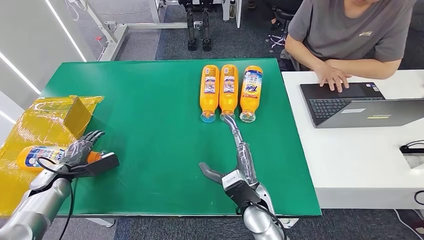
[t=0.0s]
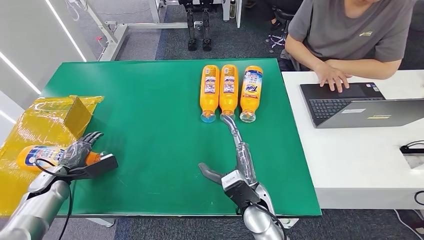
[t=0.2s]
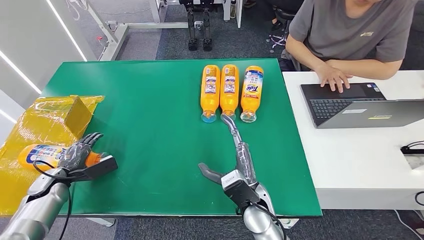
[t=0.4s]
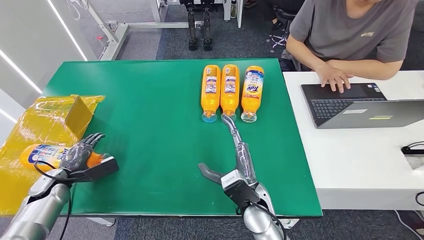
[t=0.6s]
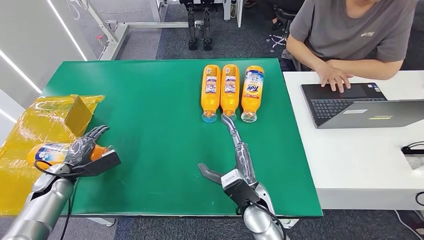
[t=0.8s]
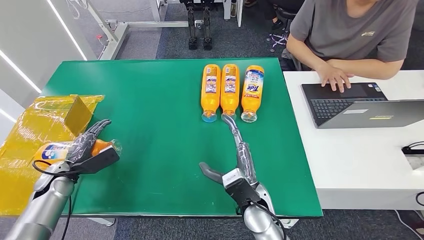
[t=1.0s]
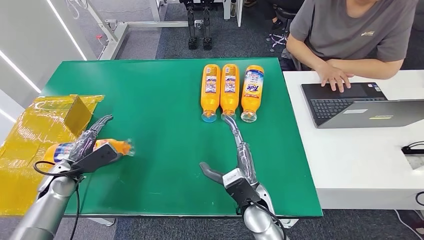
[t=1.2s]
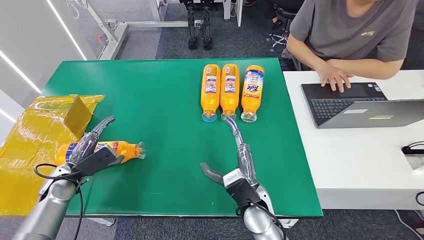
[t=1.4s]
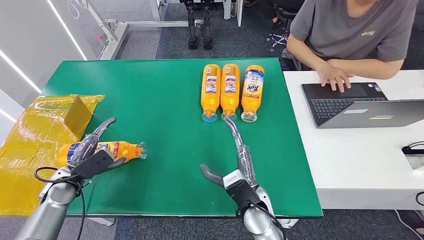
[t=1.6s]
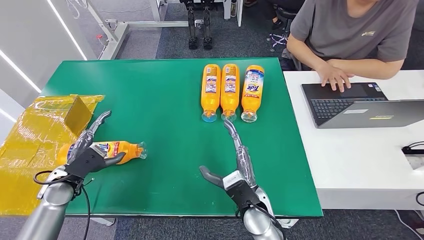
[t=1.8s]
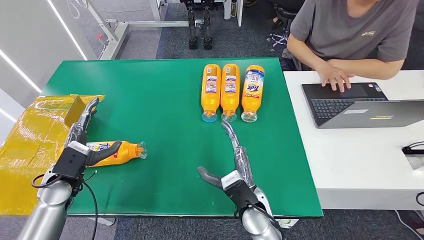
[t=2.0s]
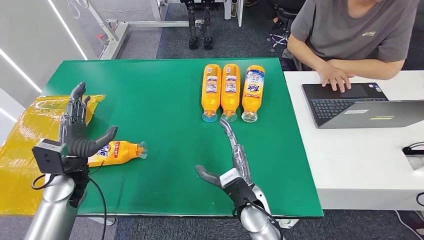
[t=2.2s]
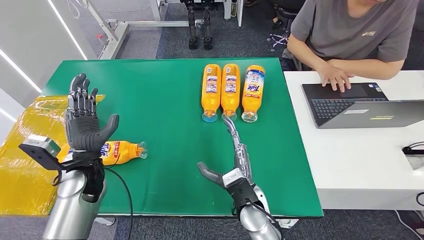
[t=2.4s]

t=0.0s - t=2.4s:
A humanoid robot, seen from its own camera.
Step, t=0.0s - t=2.4s: Turn the bottle to the front side.
t=0.0s - t=1.2s: The left hand shifts some 5 cm to the right.
t=1.2s - t=2.4s: The left hand is displaced to the right and upward by about 15 cm.
